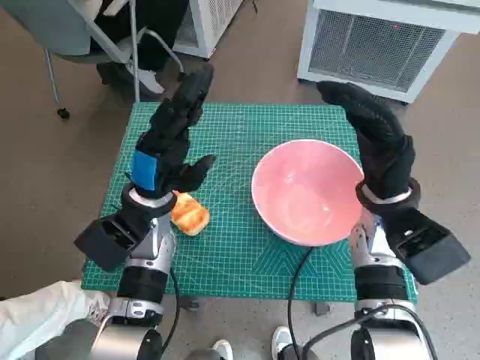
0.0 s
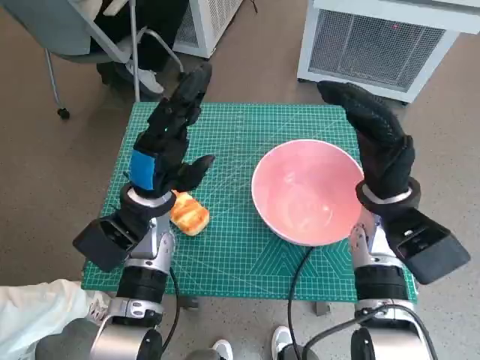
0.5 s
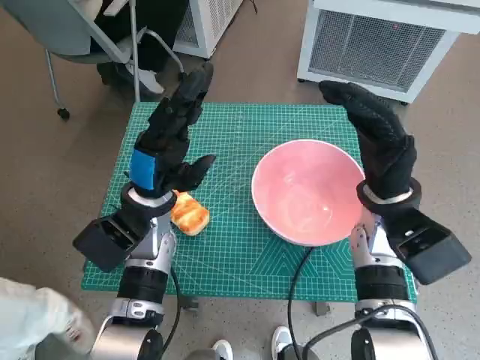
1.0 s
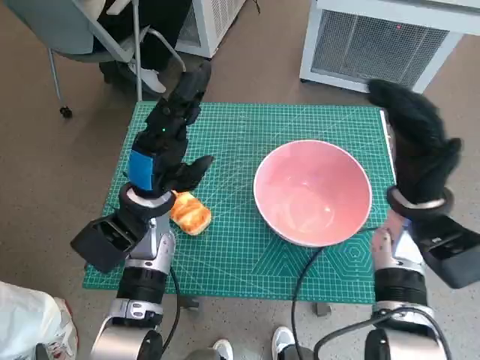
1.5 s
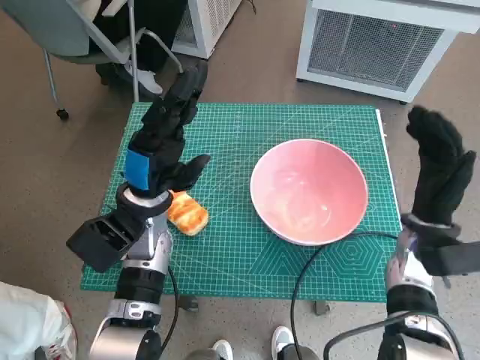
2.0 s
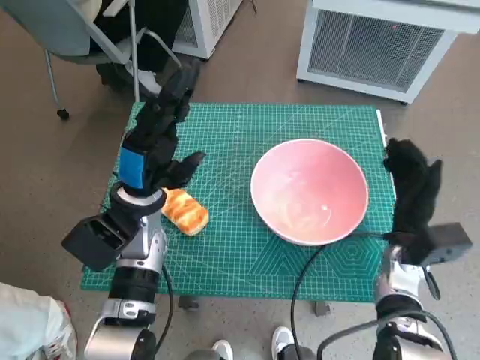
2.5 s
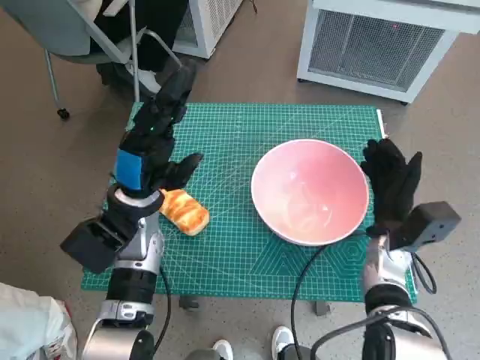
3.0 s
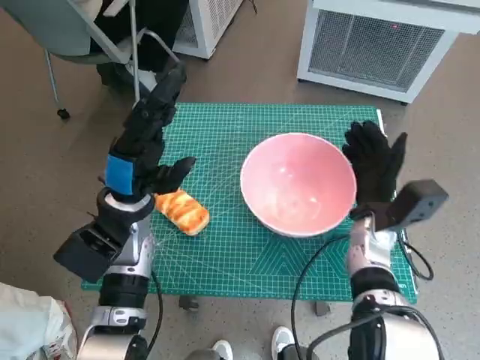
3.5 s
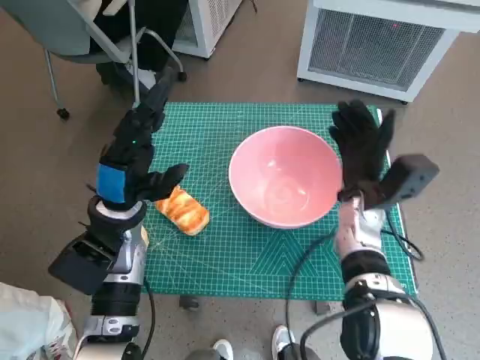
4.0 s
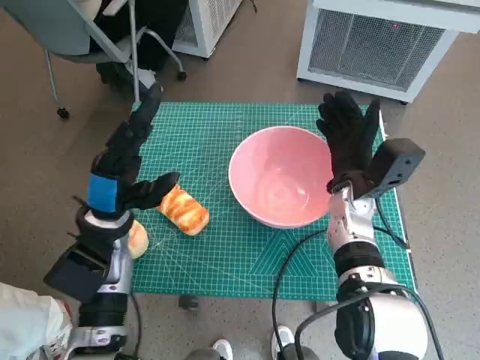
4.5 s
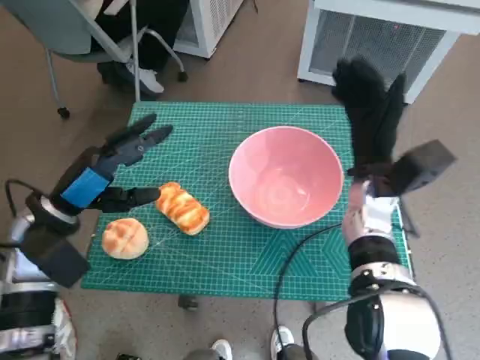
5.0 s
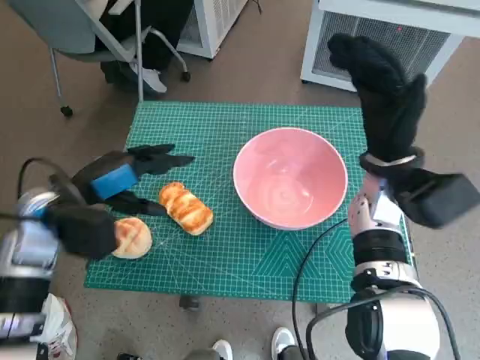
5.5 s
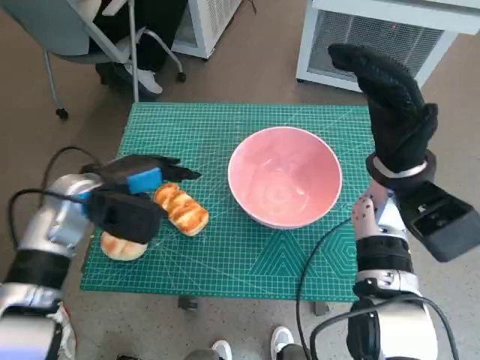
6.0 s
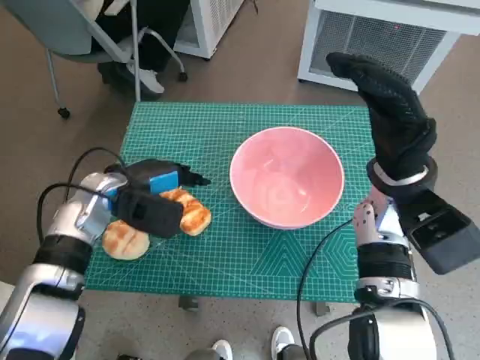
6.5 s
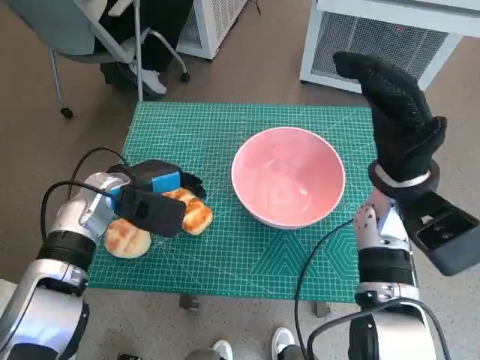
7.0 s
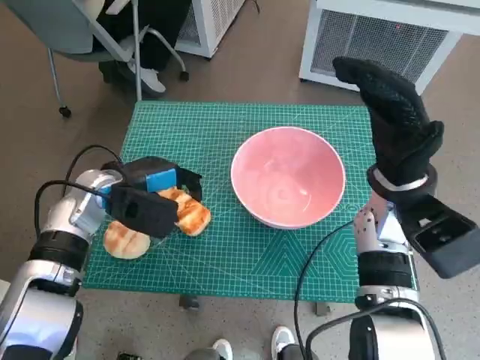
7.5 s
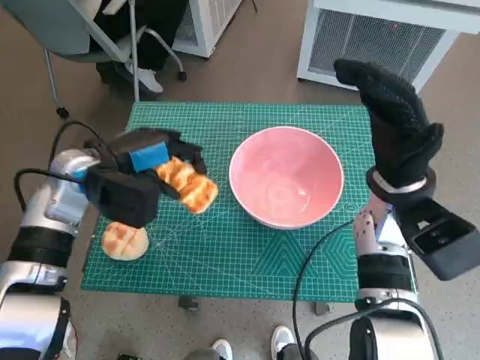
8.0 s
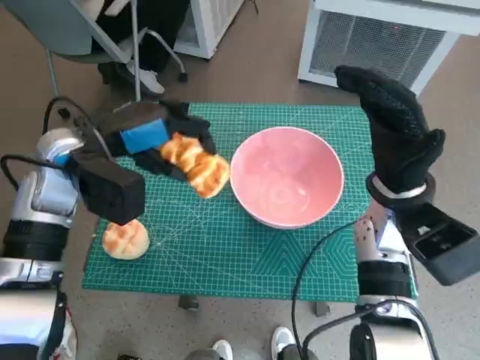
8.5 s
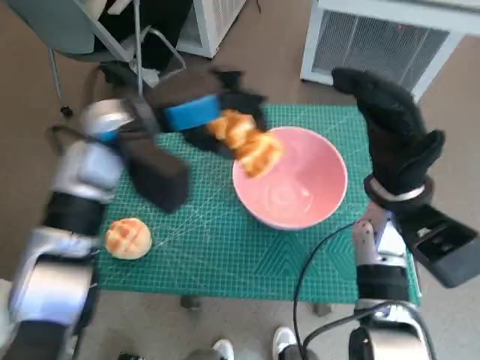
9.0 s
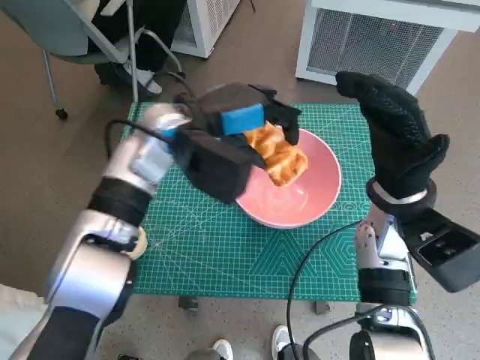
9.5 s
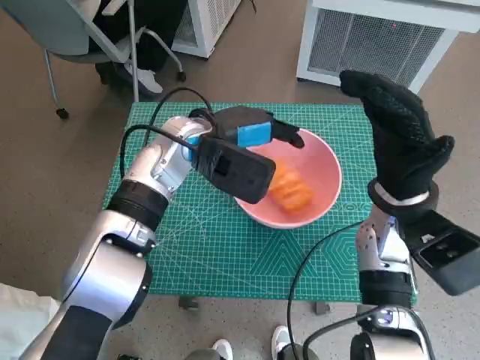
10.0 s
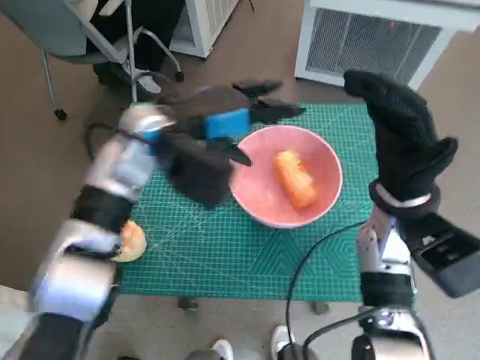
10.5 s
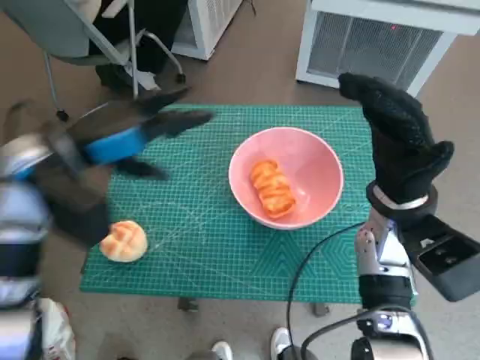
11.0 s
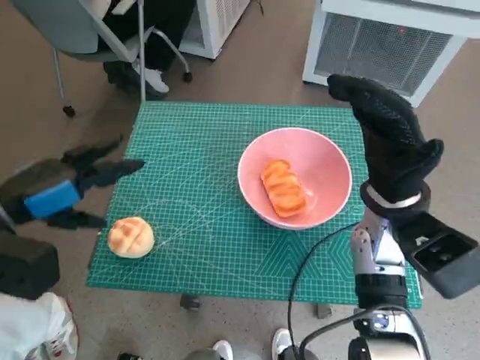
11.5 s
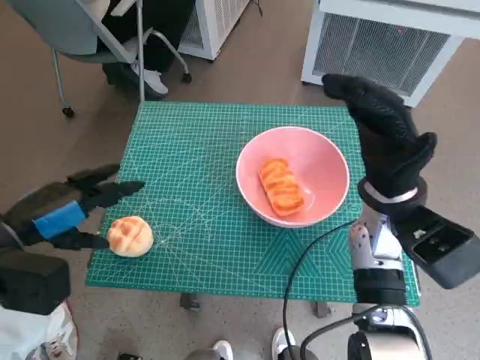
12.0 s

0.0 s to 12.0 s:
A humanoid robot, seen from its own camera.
Task of the whole recording: Push the bowl to the center of the table and put the bread into the bowl.
Step, 0.0 to 4.5 s: Move the pink bowl to the center of table with right hand.
Step, 5.5 to 7.0 s: Grasp the long bread with left hand.
Step, 7.5 to 10.0 s: Place the long bread in pink bowl with left hand.
2.0 to 4.0 s: The right hand moves to the left, some 5 cm.
4.0 to 6.0 s: The right hand moves upward, some 10 cm; the left hand heads to the left, covering roughly 5 cm.
8.0 to 10.0 s: The left hand goes about 15 cm to the right.
10.0 to 12.0 s: The left hand moves to the left and backward, about 25 cm.

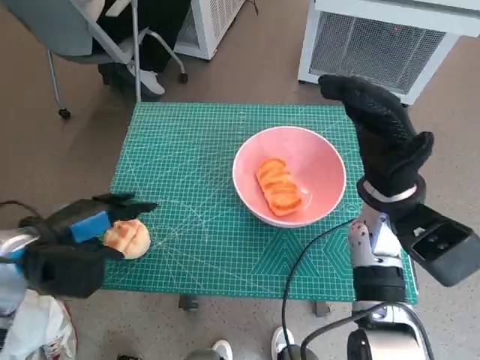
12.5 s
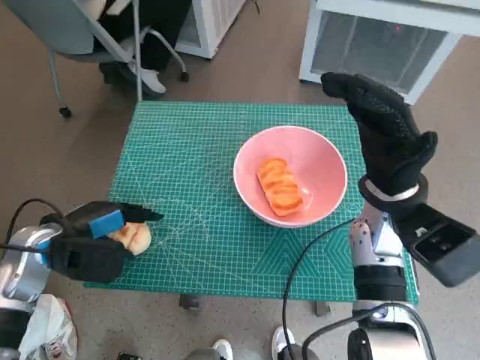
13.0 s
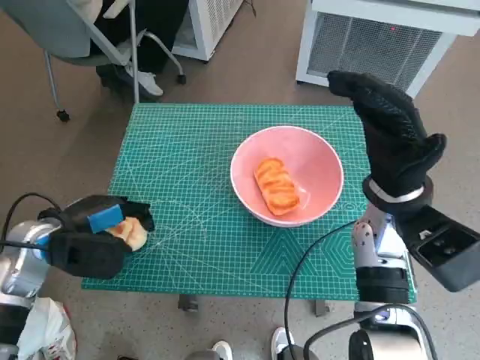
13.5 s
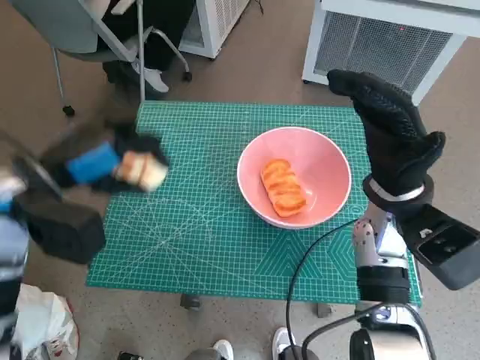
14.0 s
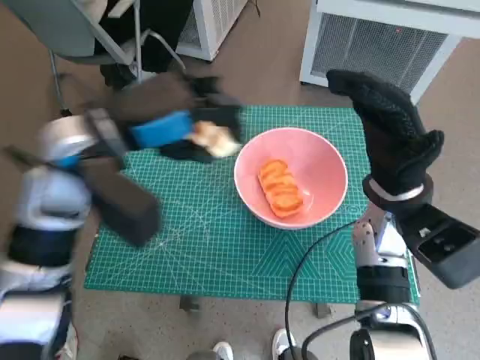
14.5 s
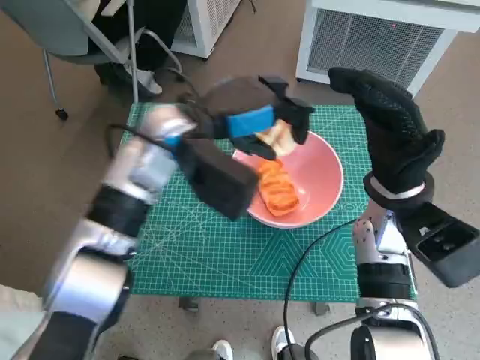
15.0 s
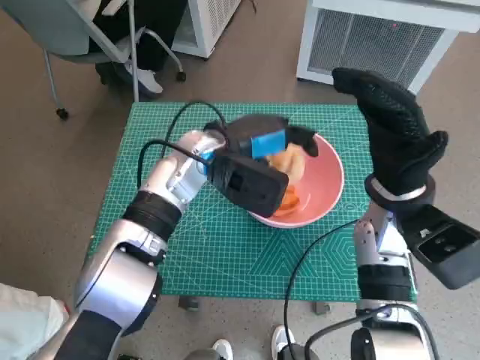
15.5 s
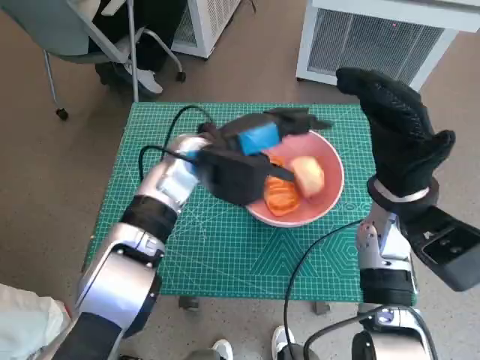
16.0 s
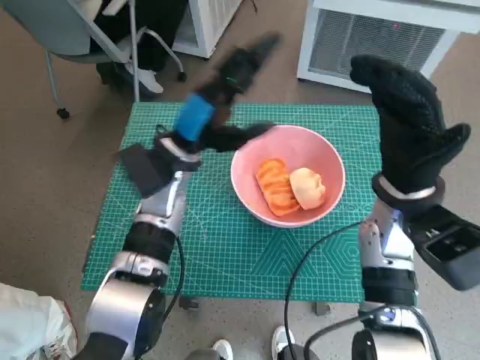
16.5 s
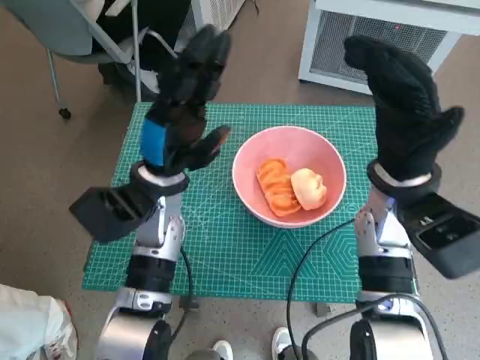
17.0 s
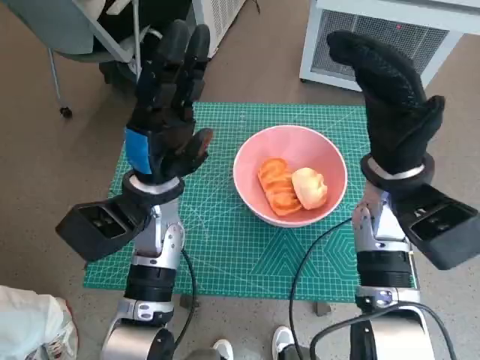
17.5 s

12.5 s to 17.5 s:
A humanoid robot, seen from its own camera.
Task of the whole recording: Push the bowl to the center of the table and put the bread into the bowl.
Step, 13.5 to 16.0 s: Place the round bread in pink bowl with left hand.
12.5 to 15.0 s: The left hand moves to the right, forward and upward, approximately 25 cm.
15.0 to 17.5 s: The left hand shifts approximately 10 cm downward.

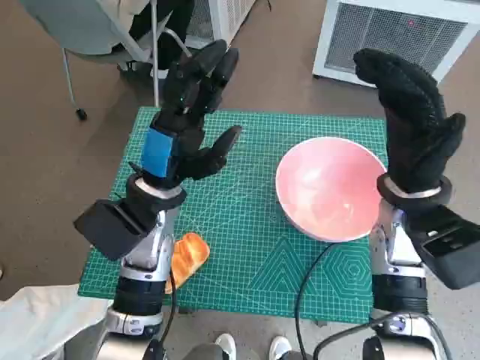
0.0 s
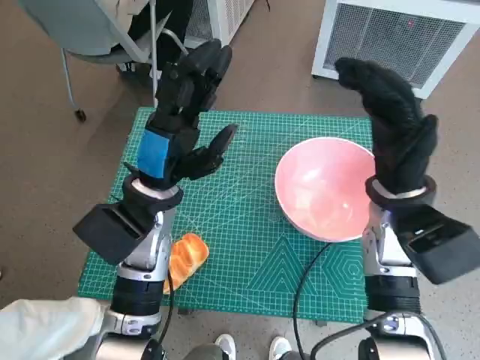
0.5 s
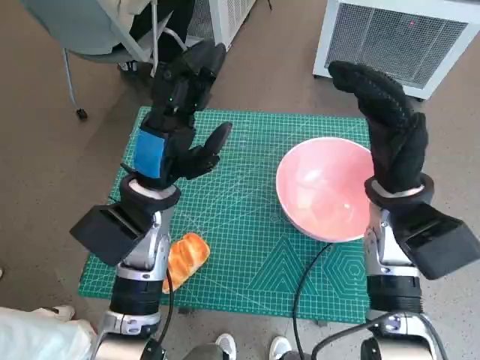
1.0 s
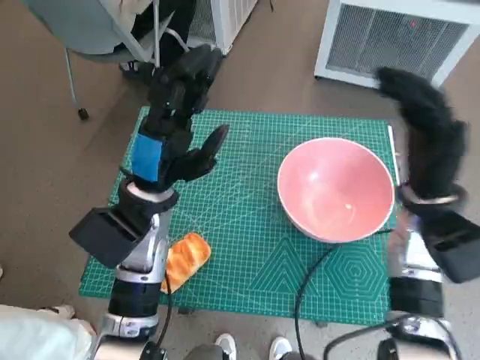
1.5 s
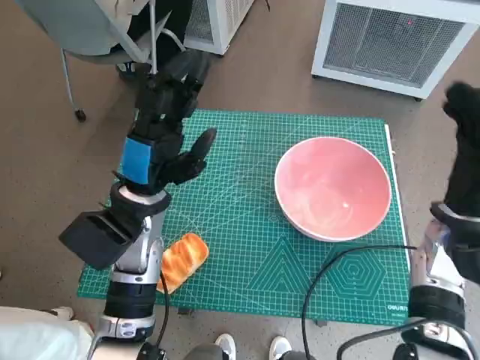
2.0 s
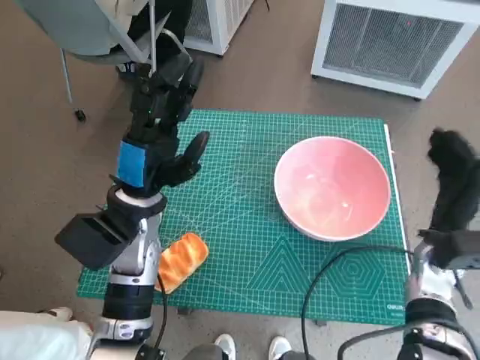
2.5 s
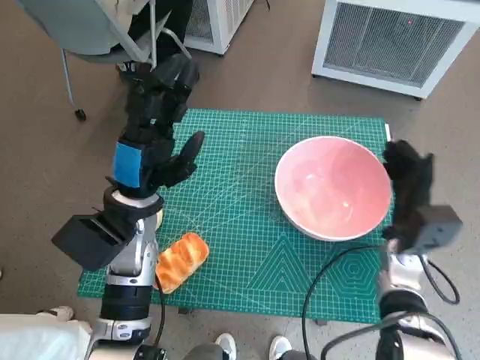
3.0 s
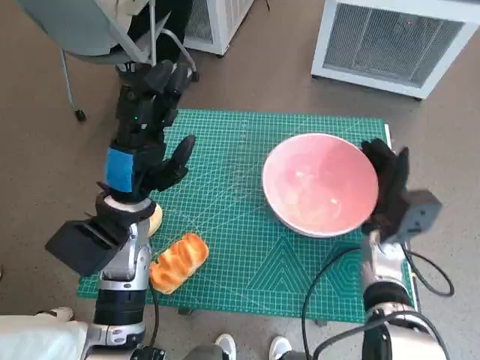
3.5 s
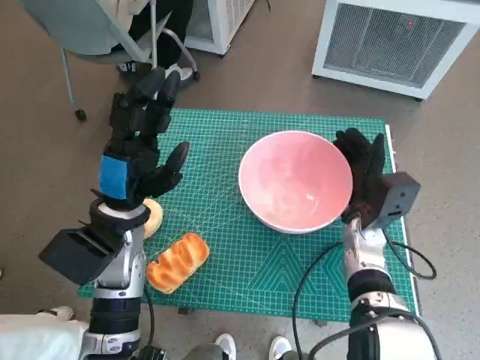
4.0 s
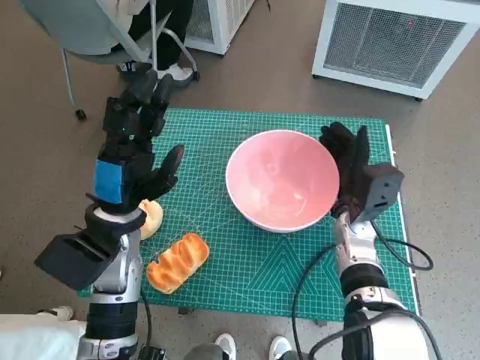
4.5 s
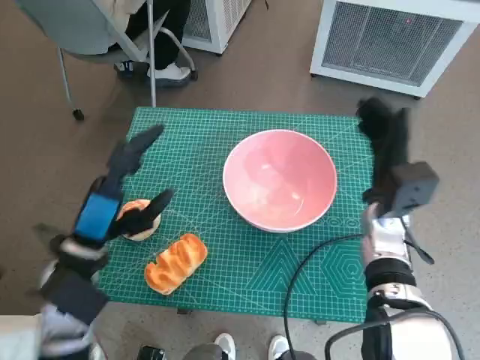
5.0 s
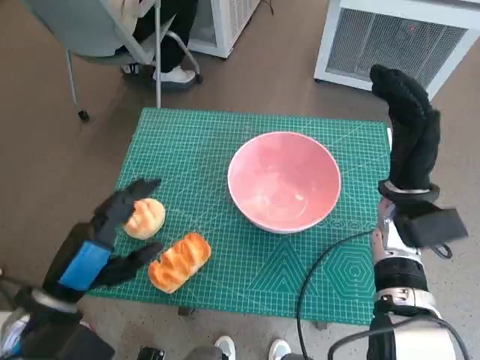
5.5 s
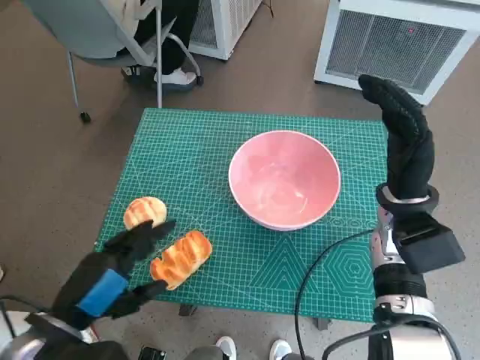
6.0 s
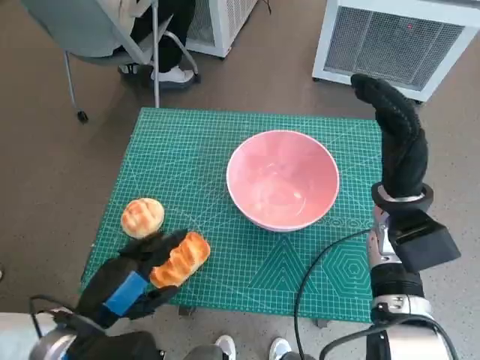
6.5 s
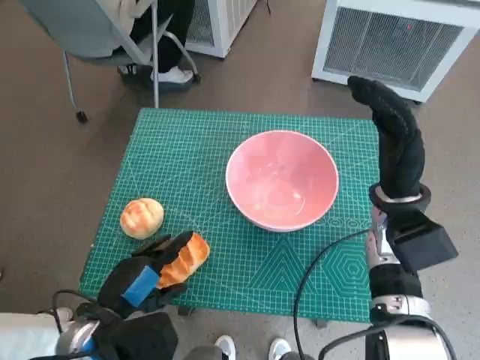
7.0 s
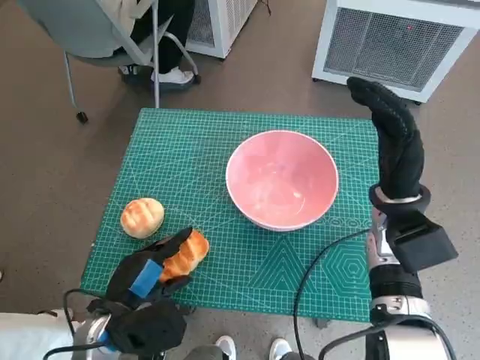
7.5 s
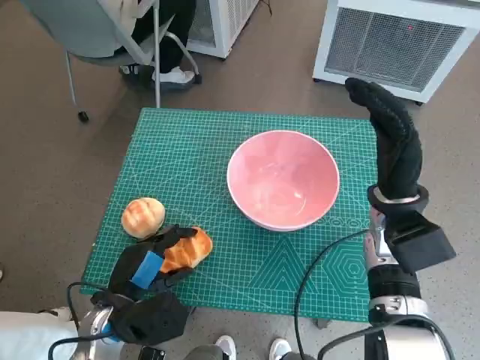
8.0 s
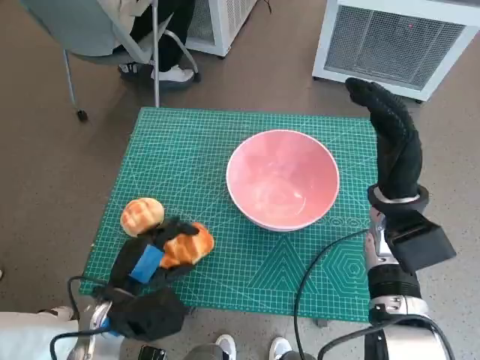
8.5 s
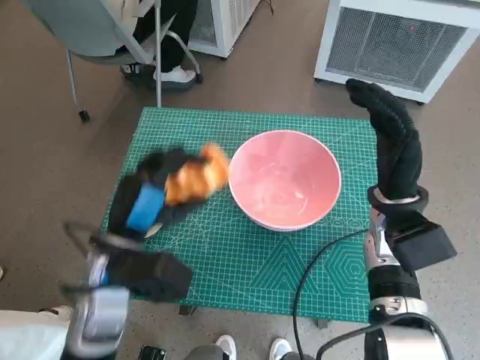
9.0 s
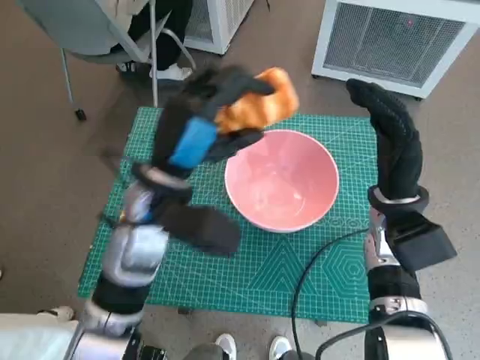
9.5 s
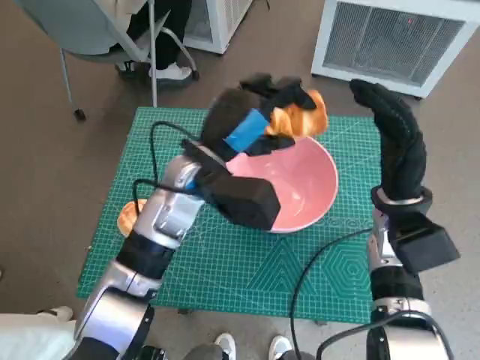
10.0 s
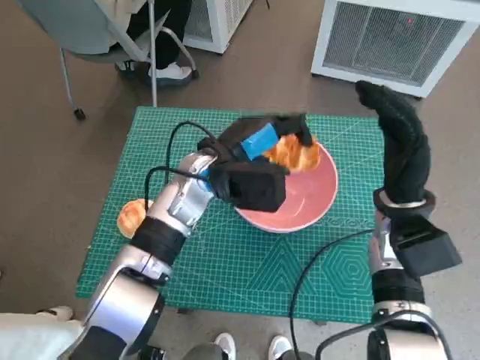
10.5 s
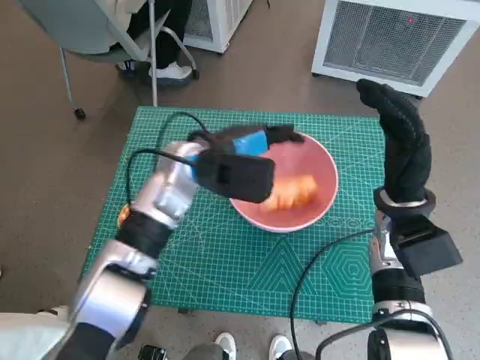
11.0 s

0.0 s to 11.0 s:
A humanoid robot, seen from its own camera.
Task of the whole recording: Push the bowl to the center of the table and put the bread into the bowl.
Step, 0.0 to 4.5 s: Move the pink bowl to the center of table with right hand.
Step, 5.0 to 7.5 s: Grasp the long bread with left hand.
2.0 to 3.5 s: The right hand moves downward and to the left, approximately 10 cm.
3.5 to 5.5 s: The right hand moves upward, some 10 cm. The left hand goes some 15 cm backward and to the left.
5.5 to 7.5 s: The left hand is displaced downward by about 10 cm.
7.5 to 9.0 s: The left hand travels upward and forward by approximately 10 cm.
9.0 to 11.0 s: The left hand shifts about 15 cm forward and to the right.
